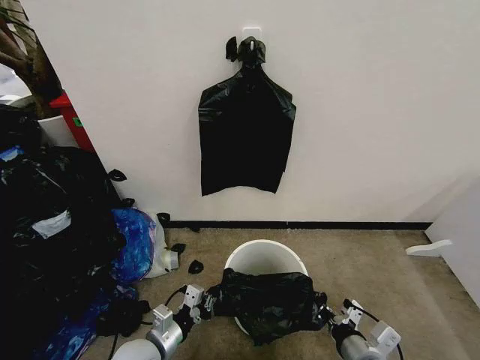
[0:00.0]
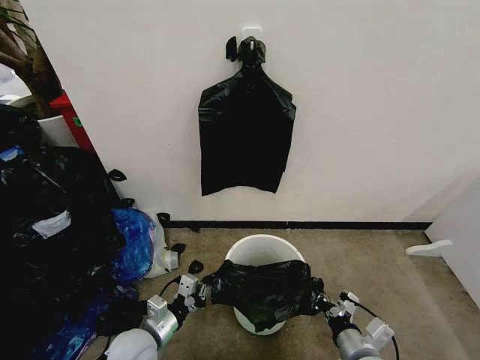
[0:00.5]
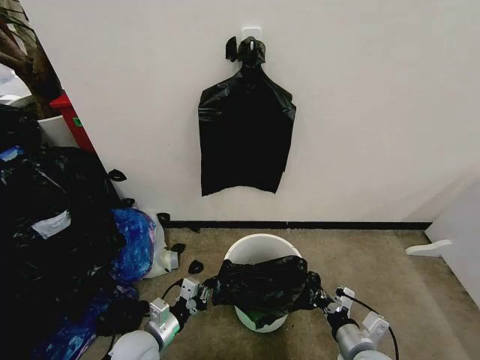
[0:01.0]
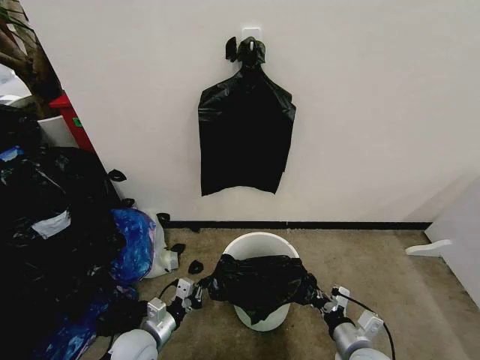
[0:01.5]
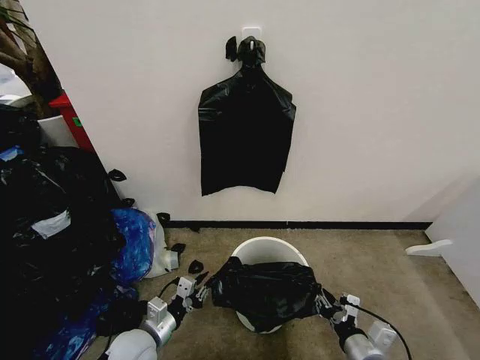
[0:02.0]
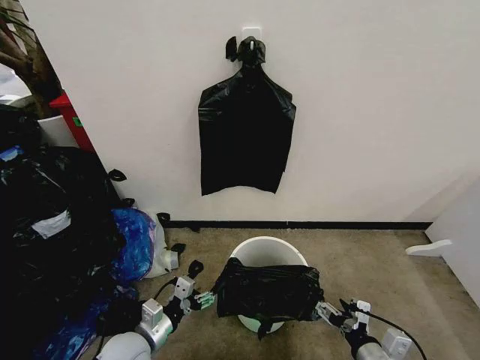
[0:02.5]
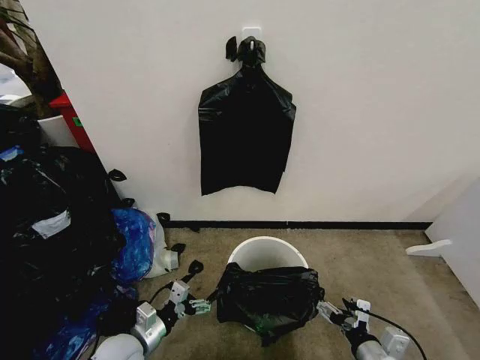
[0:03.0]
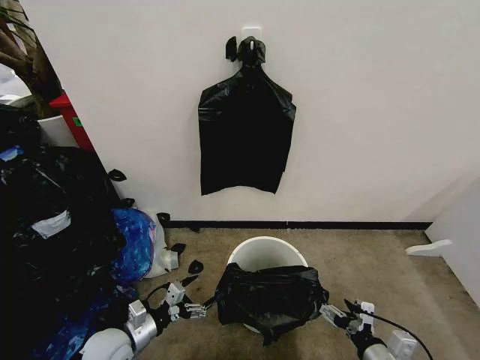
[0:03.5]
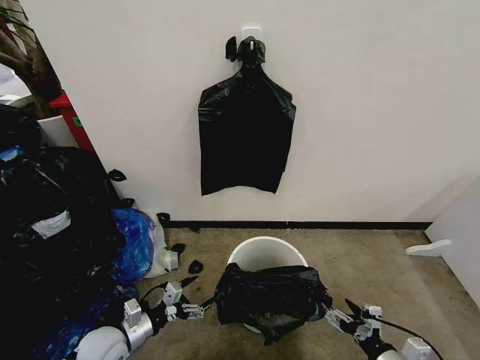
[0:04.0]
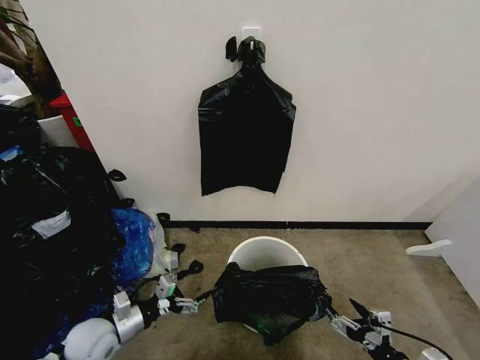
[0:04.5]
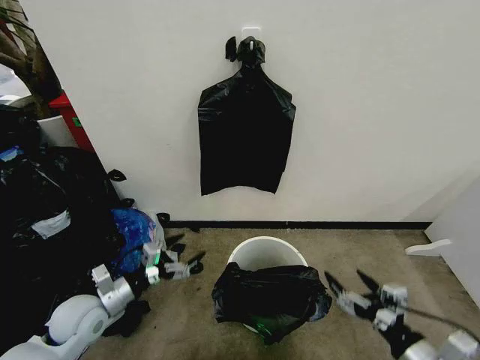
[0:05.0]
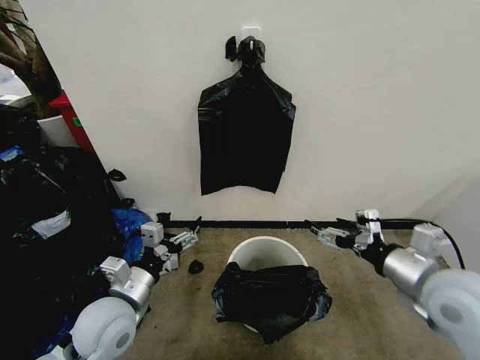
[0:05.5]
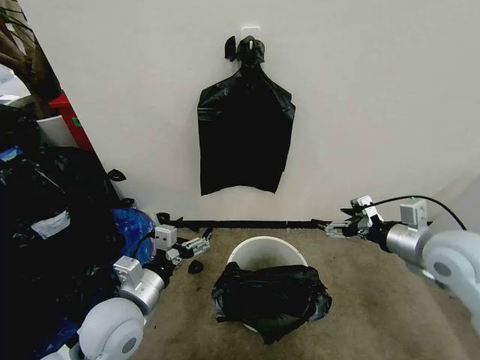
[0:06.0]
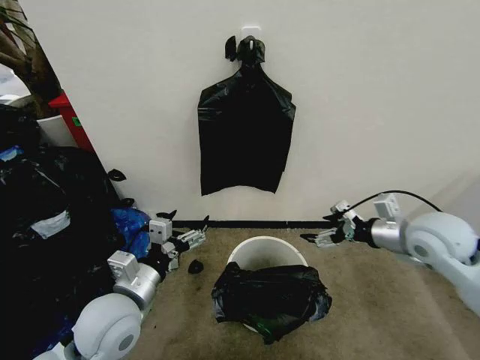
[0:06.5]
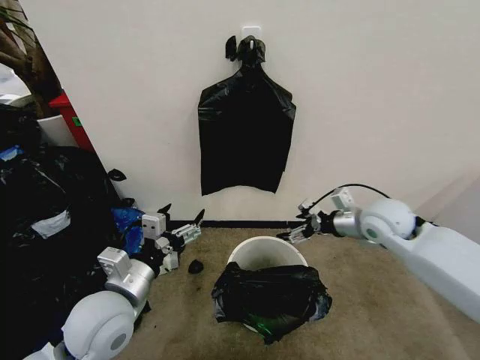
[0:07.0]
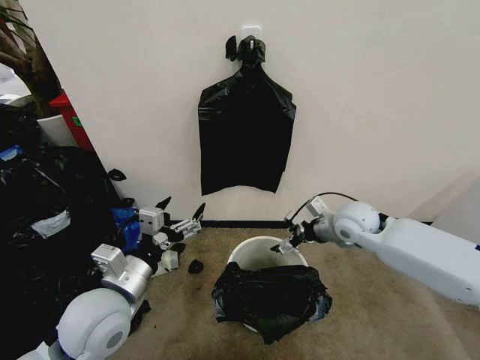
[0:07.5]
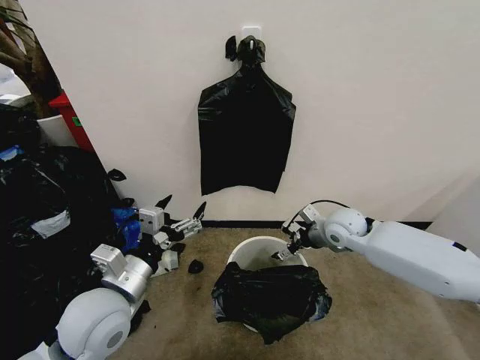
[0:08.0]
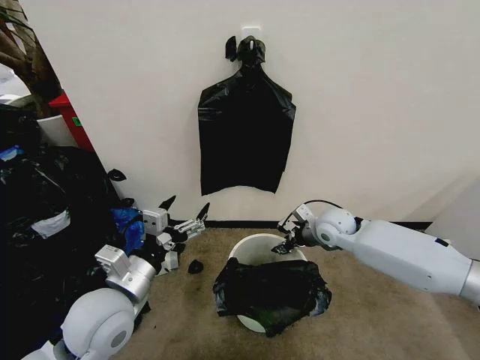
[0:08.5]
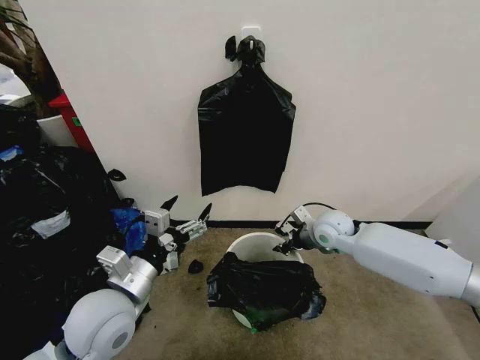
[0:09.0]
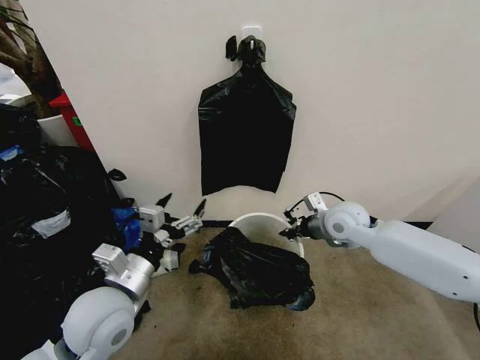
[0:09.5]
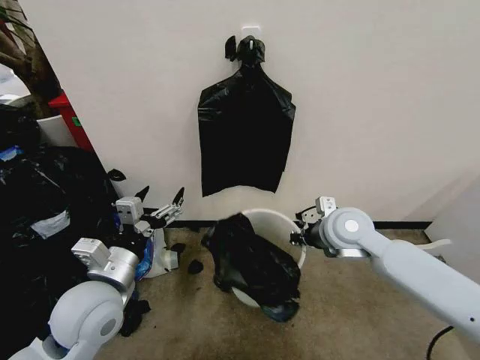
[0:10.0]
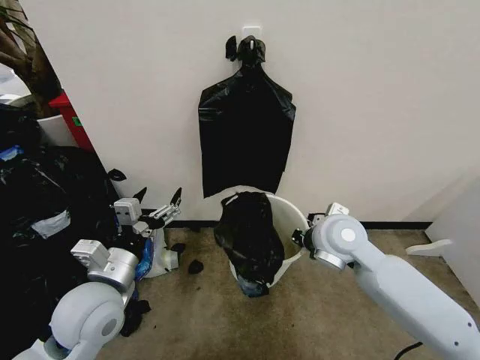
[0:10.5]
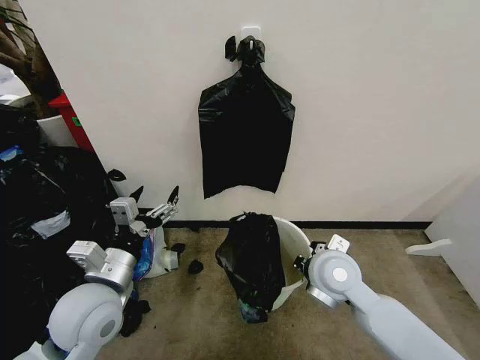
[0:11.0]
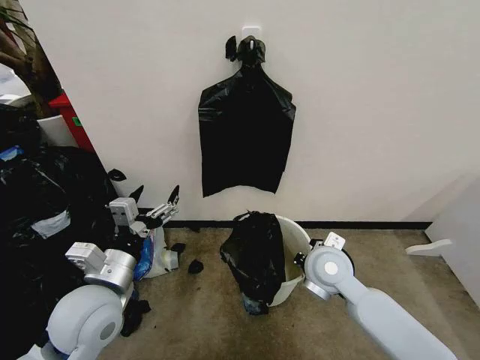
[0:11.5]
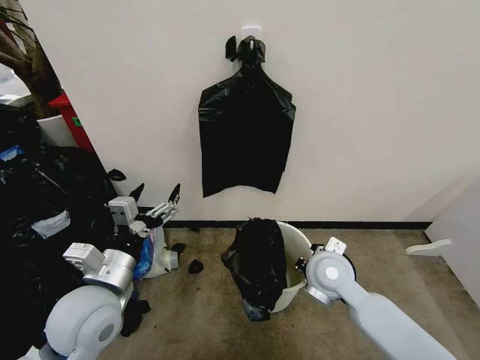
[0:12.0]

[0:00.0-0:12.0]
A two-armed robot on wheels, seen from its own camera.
Task of the whole recording: Place the garbage bag over the trash bin.
0:00.0 to 0:02.0: The right gripper ends up roughly 5 cm from where it was, and opens up.
0:02.0 to 0:04.0: The right gripper heads to the right, covering approximately 5 cm, and opens its fingers, while the left gripper shifts about 5 cm to the left, and opens.
0:04.0 to 0:06.0: The right gripper travels upward and forward by some 30 cm. Meanwhile the left gripper heads upward and to the right, covering some 20 cm.
0:06.0 to 0:08.0: The right gripper is displaced forward, downward and to the left by about 20 cm.
0:08.0 to 0:10.0: The right gripper shifts approximately 10 cm upward and backward, and closes up.
0:10.0 to 0:12.0: The right gripper travels downward and backward by about 10 cm.

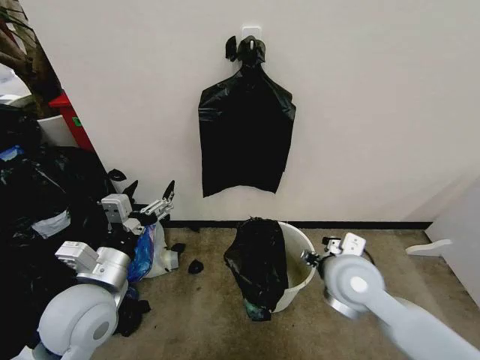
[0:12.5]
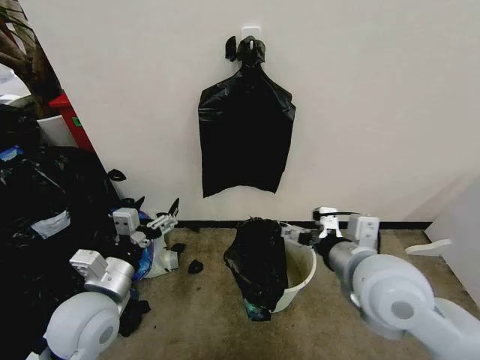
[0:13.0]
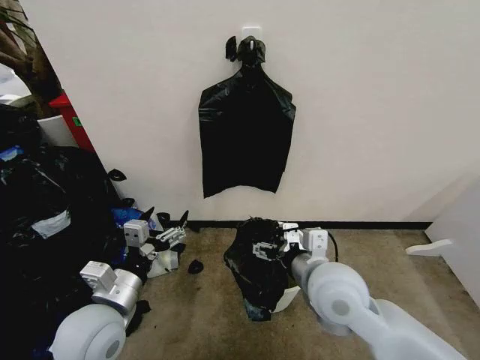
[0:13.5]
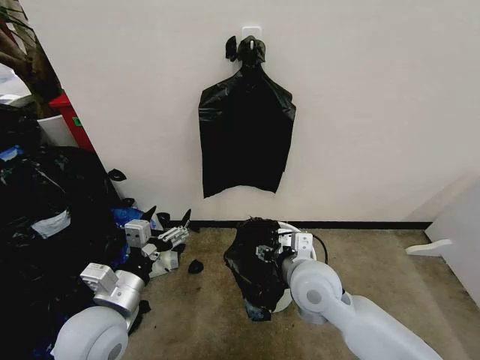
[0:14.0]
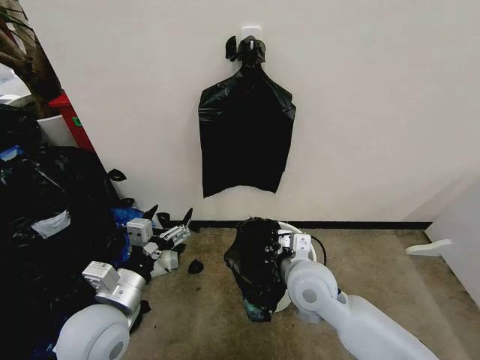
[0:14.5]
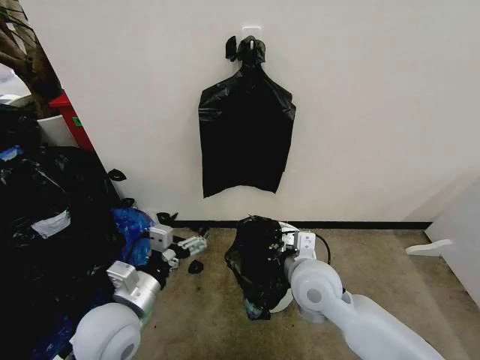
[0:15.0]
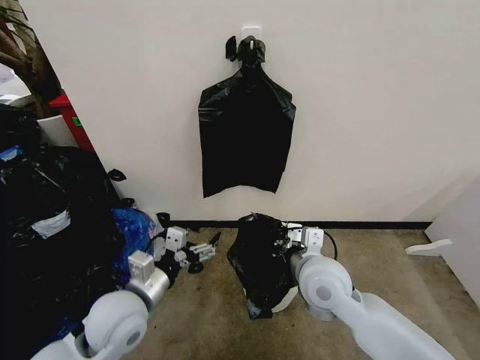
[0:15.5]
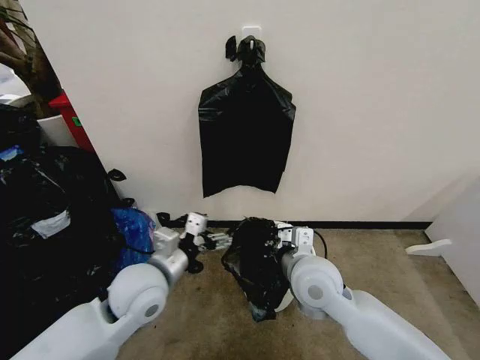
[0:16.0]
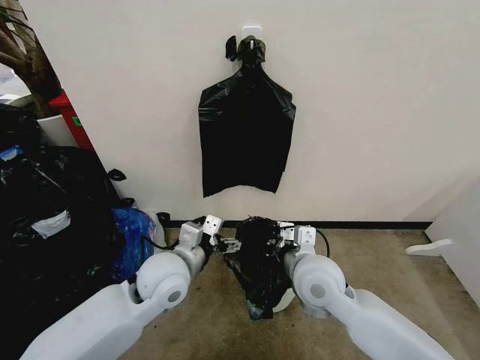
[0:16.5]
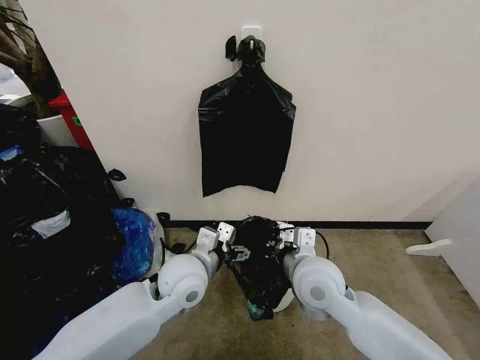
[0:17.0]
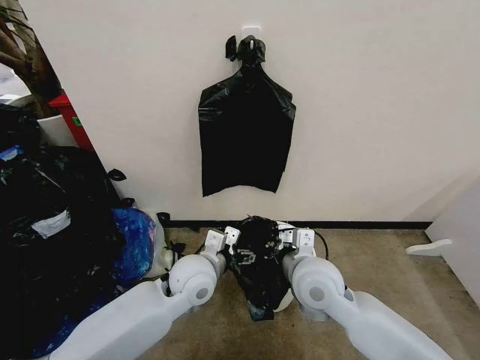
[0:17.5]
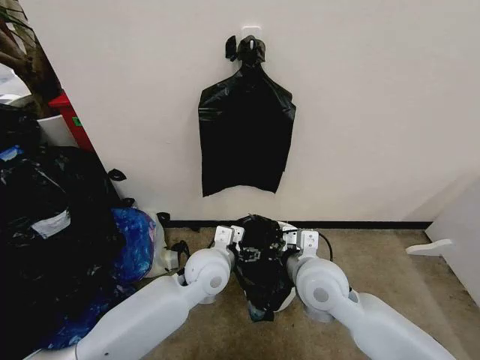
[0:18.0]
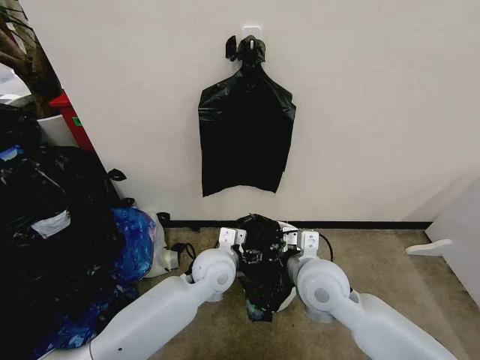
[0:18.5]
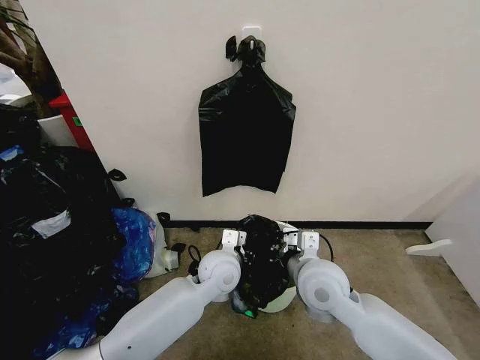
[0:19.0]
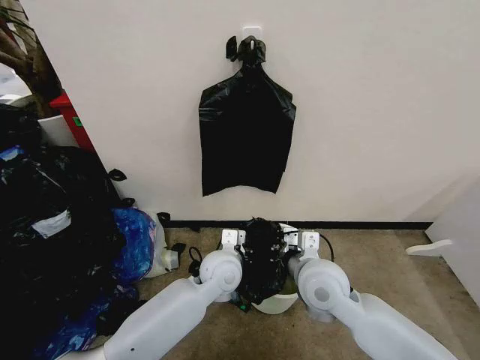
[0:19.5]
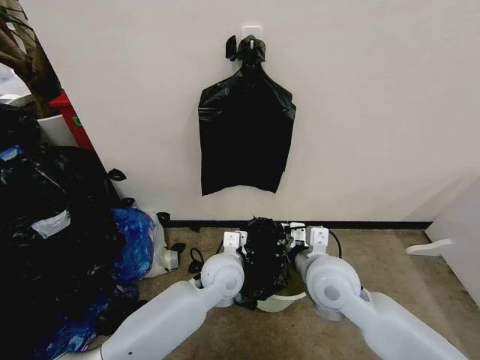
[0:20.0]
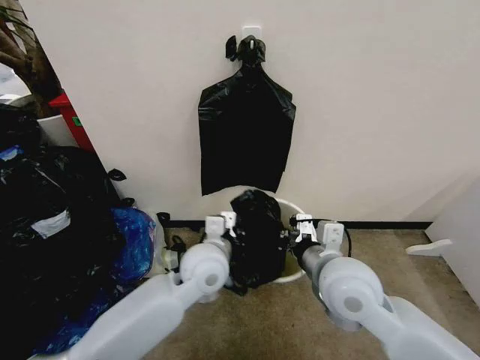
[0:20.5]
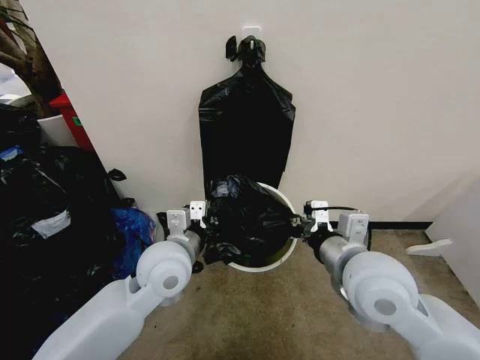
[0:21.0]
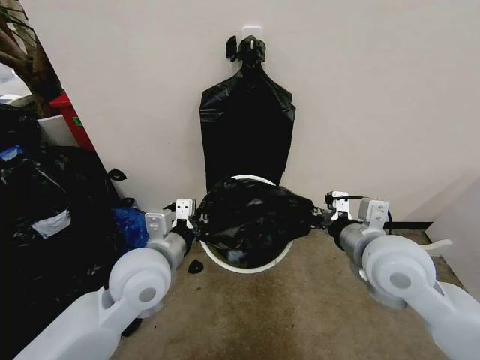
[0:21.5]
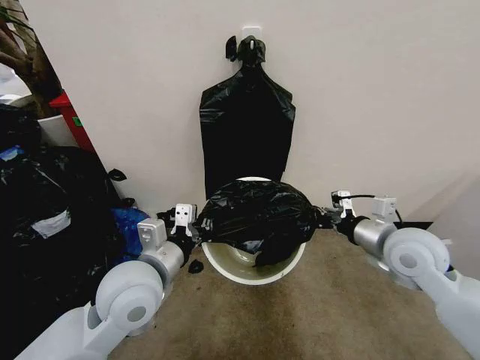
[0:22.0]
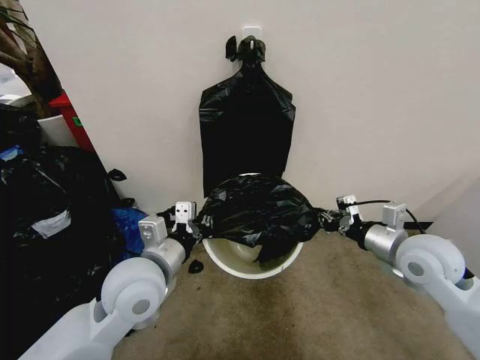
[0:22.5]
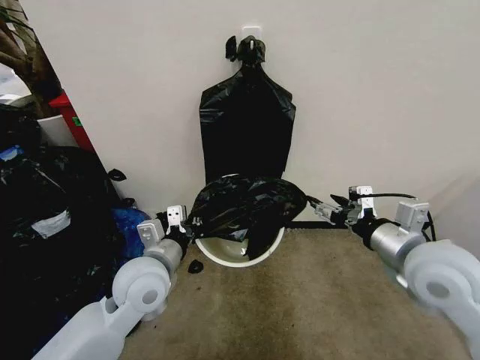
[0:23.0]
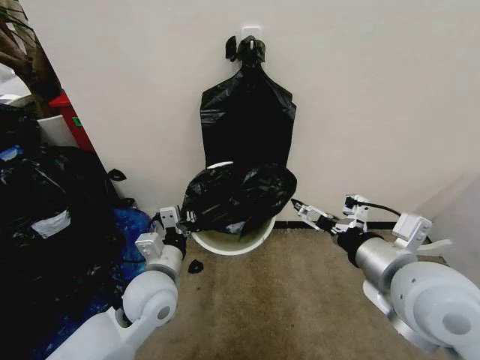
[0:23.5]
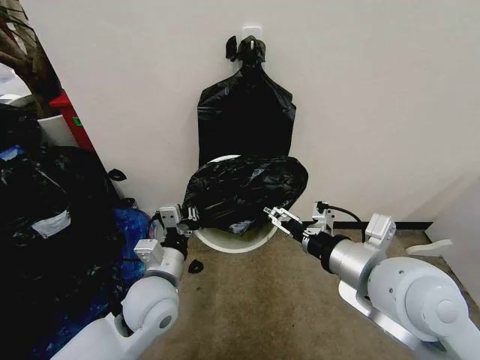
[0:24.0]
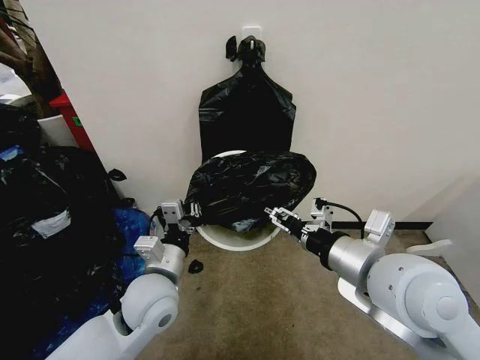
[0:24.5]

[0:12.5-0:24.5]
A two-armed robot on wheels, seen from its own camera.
Task of the whole recording: Place the garbage bag over the trash bin.
0:12.5 to 0:14.5: The right gripper is displaced to the left by about 5 cm, goes upward and returns, about 10 cm each way, and closes its fingers.
0:14.5 to 0:16.5: The left gripper shifts approximately 15 cm forward and to the right.
0:16.5 to 0:18.5: The left gripper goes about 10 cm to the right and downward.
0:18.5 to 0:20.5: Both grippers move upward, about 5 cm. The left gripper closes its fingers.
0:20.5 to 0:22.5: The right gripper is displaced to the right by roughly 15 cm. The left gripper moves to the left, backward and upward, roughly 15 cm.
0:22.5 to 0:24.5: The left gripper goes approximately 5 cm downward. The right gripper moves to the left, backward and upward, about 20 cm, and opens its fingers.

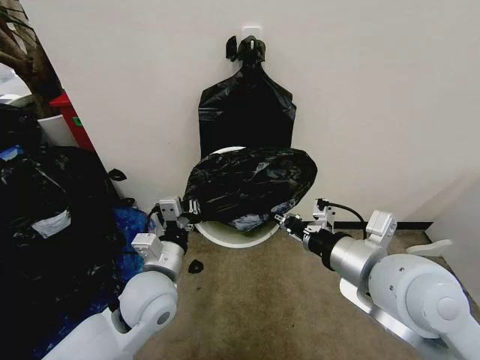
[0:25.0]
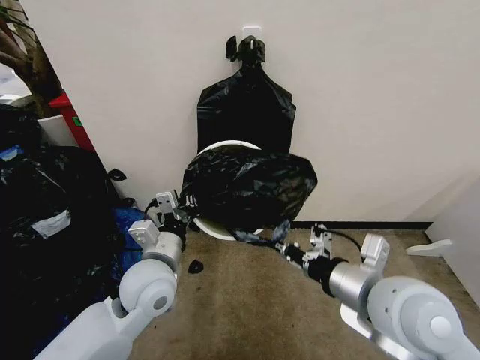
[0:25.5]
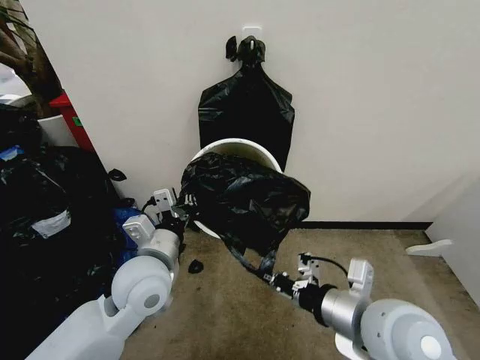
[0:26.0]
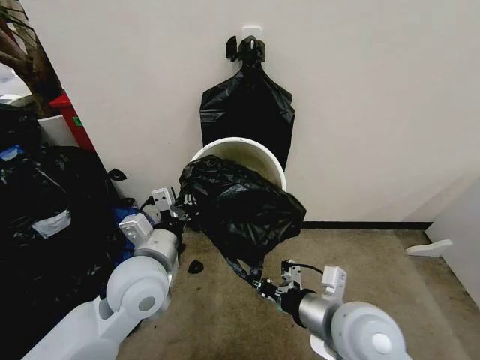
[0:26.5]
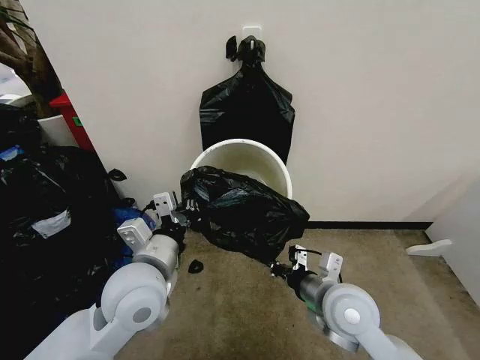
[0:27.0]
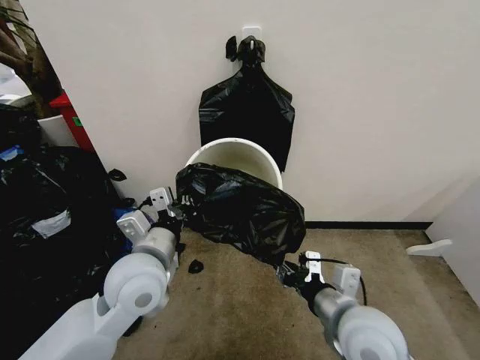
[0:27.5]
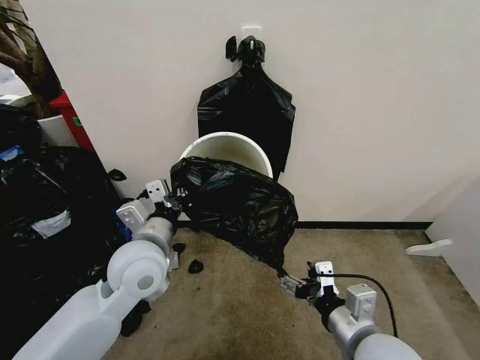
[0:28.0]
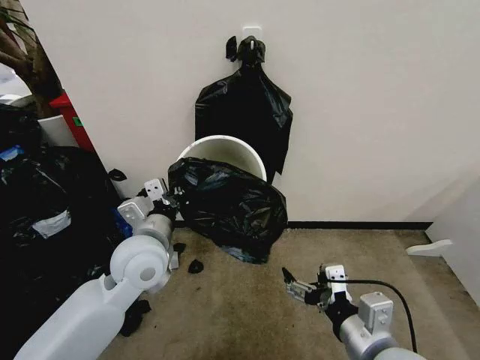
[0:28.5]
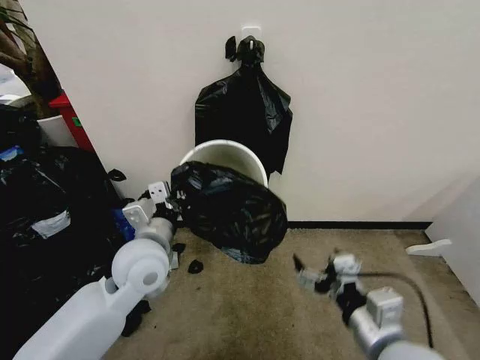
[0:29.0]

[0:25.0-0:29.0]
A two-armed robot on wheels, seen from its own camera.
Task of the whole recording: Place the garbage bag over the trash bin.
0:25.0 to 0:27.0: The right gripper moves downward, some 15 cm. The left gripper moves upward, approximately 5 cm.
0:27.0 to 0:29.0: The right gripper is displaced backward by some 10 cm, and opens its fingers. Meanwhile the left gripper is displaced forward by some 5 cm.
